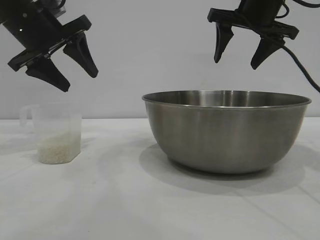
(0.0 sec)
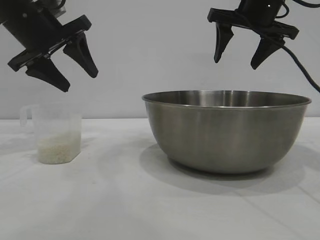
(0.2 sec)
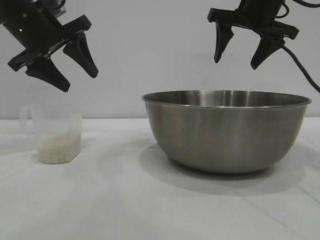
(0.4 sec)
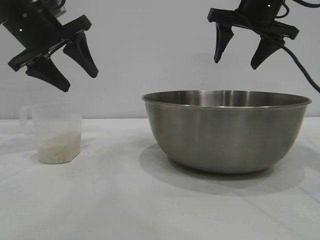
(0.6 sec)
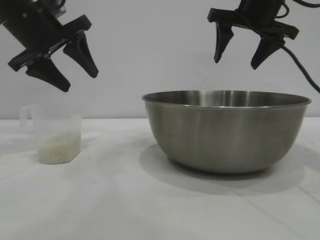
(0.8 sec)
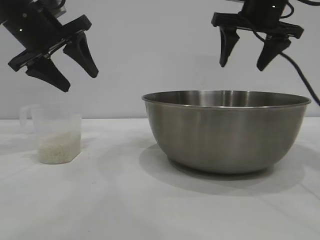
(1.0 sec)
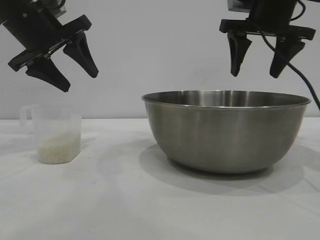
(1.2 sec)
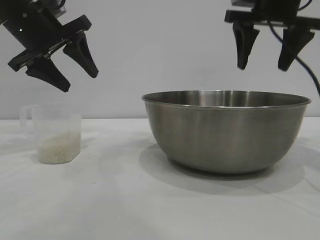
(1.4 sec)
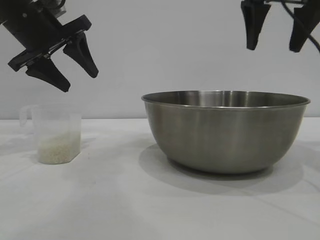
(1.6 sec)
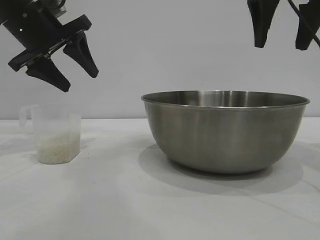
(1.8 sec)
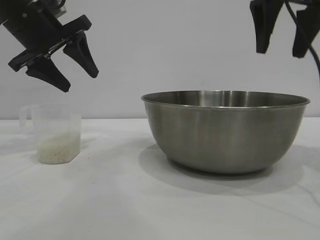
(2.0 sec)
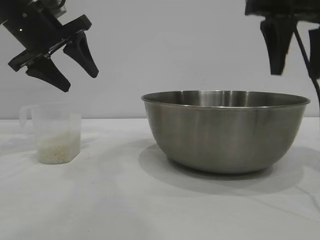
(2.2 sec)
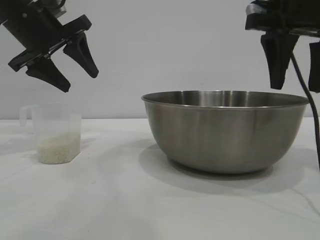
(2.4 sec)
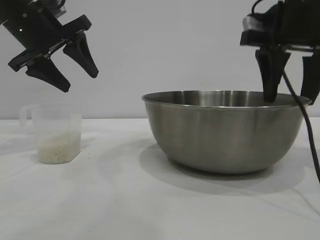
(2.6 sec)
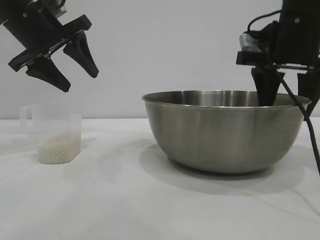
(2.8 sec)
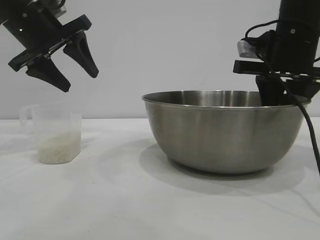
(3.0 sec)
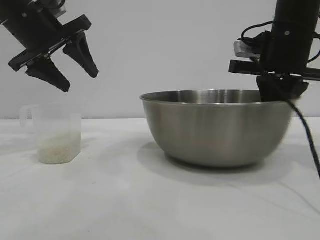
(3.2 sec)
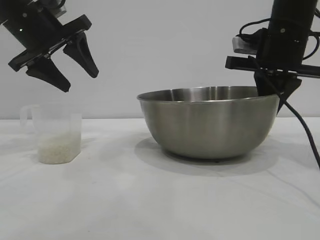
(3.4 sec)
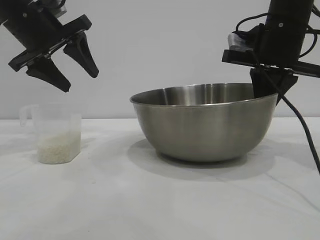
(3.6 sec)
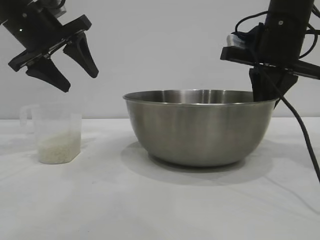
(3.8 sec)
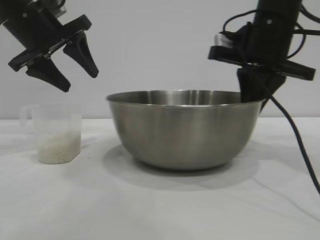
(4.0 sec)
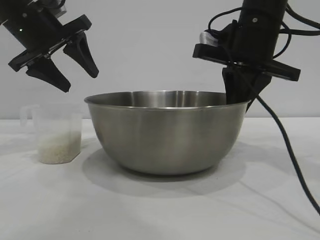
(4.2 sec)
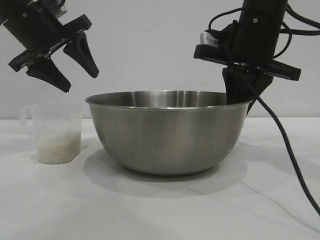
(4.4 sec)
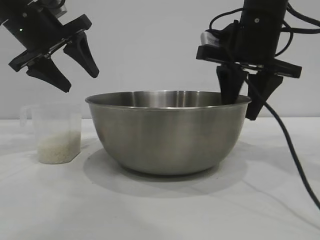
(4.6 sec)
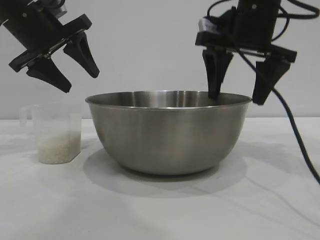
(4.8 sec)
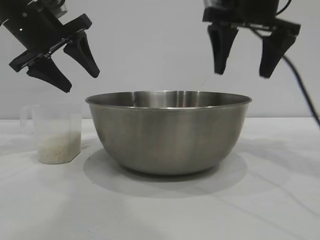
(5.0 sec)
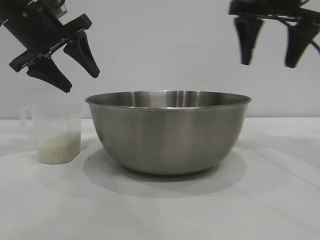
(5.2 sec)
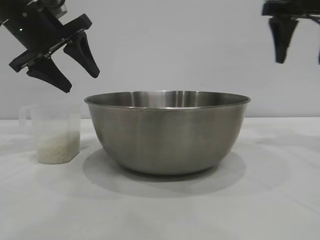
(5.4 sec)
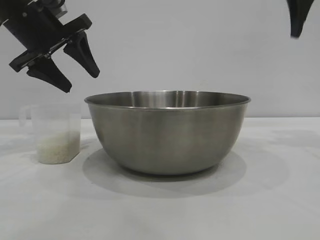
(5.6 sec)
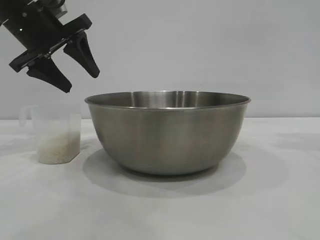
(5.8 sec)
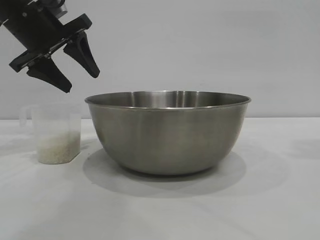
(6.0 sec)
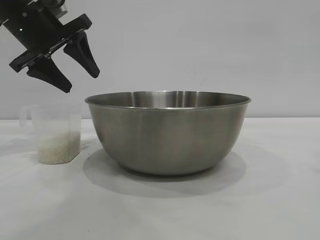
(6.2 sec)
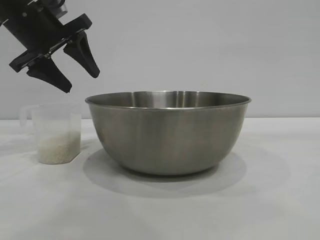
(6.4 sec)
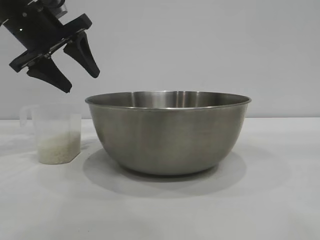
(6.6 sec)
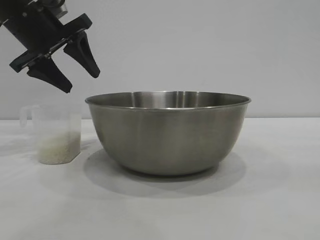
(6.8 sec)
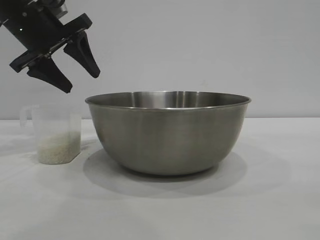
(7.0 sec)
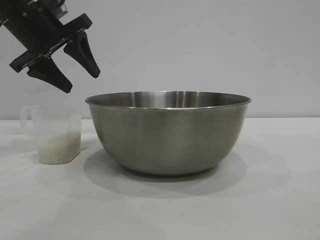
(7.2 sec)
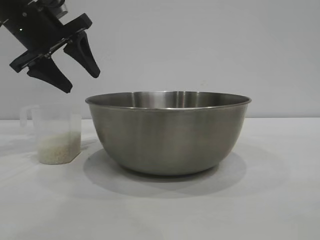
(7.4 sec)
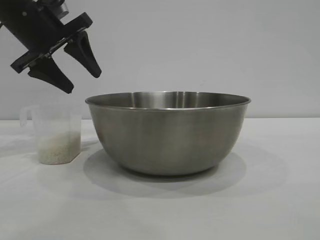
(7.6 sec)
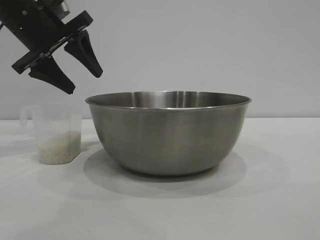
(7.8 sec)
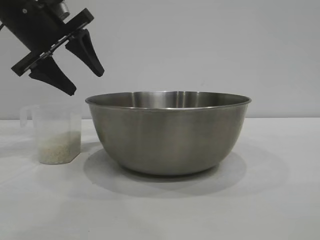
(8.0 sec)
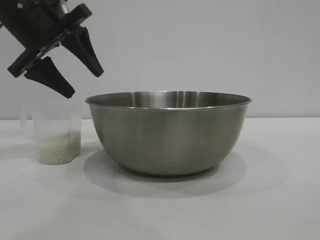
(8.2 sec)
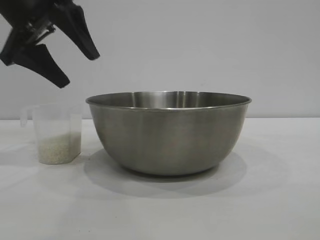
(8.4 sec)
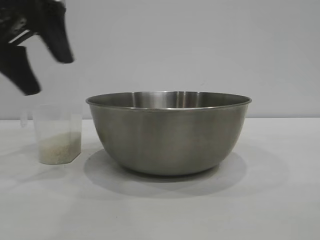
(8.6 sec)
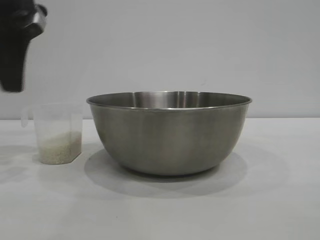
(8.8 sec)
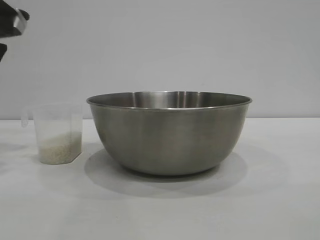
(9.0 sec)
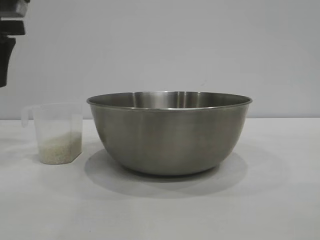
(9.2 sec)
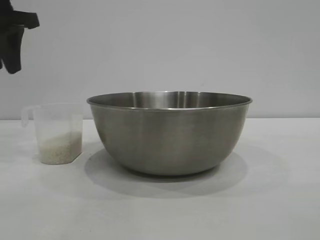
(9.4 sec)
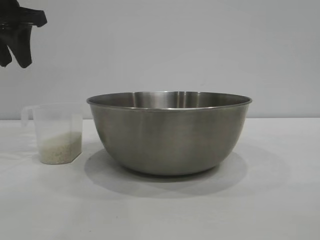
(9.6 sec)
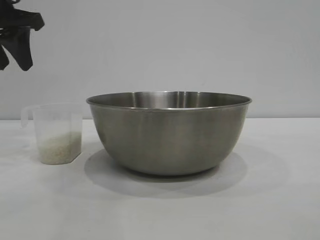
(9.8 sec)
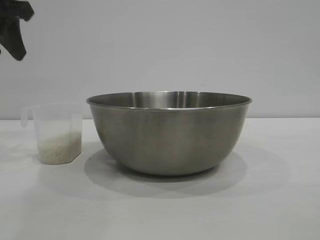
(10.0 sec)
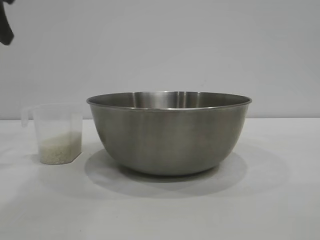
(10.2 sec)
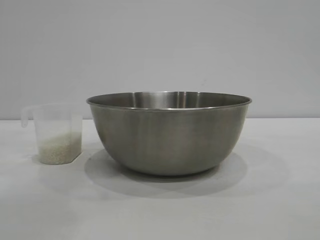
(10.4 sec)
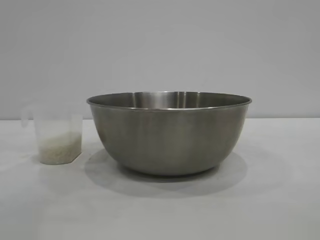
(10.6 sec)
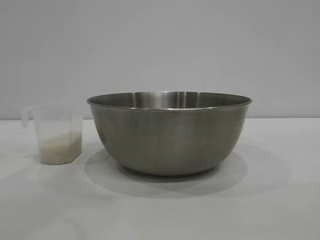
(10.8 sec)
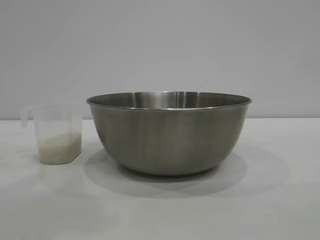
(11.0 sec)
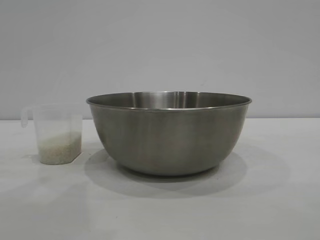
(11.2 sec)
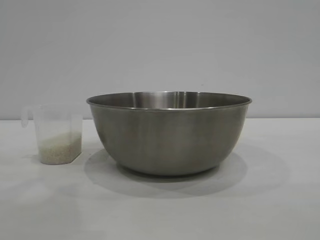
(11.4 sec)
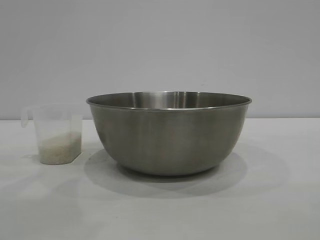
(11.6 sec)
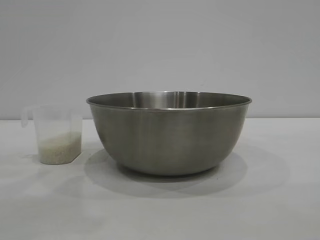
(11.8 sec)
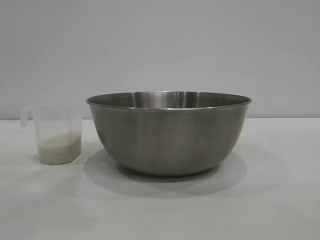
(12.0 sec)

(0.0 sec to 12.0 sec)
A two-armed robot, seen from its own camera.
Task of the whole recording: the right gripper grasp the rice container and place it in the center of the table, the left gripper grasp the rice scoop and pour the rice into the rice container.
Step, 0.0 sec - 5.0 sec: Move the bowl to the center of view with the right gripper.

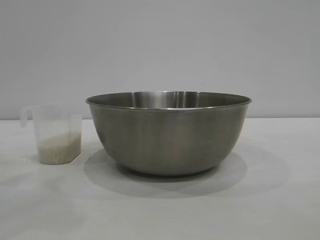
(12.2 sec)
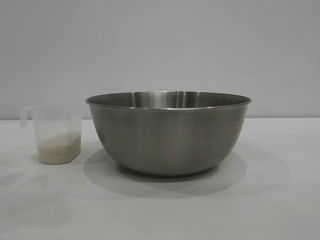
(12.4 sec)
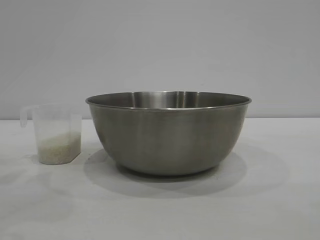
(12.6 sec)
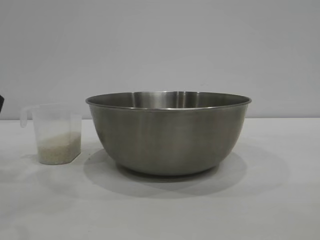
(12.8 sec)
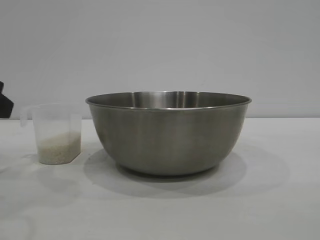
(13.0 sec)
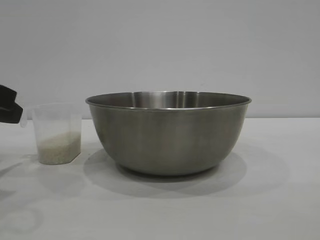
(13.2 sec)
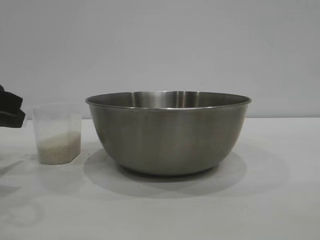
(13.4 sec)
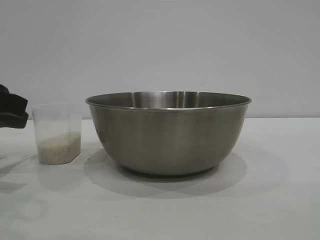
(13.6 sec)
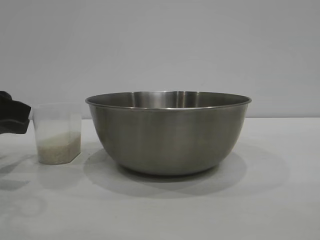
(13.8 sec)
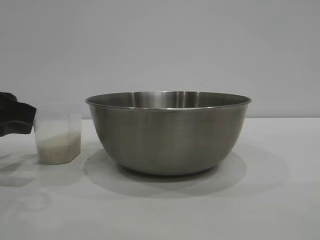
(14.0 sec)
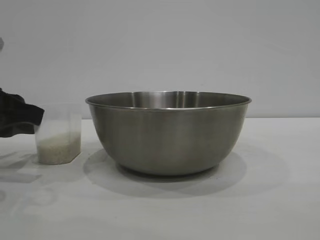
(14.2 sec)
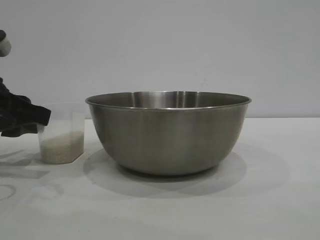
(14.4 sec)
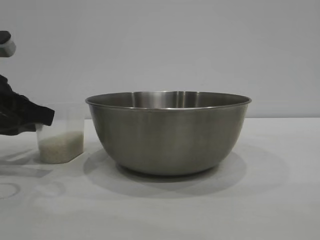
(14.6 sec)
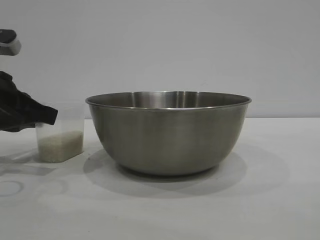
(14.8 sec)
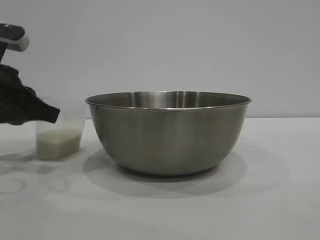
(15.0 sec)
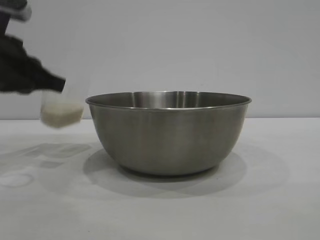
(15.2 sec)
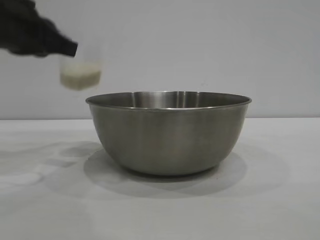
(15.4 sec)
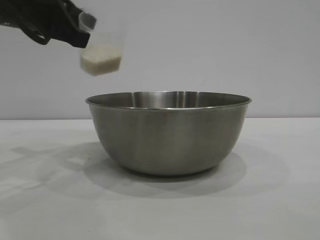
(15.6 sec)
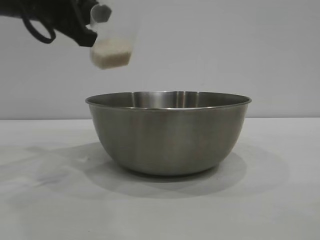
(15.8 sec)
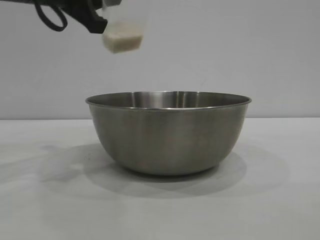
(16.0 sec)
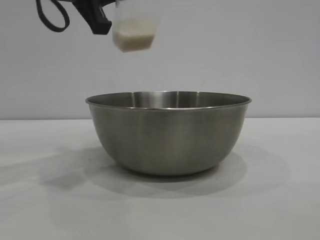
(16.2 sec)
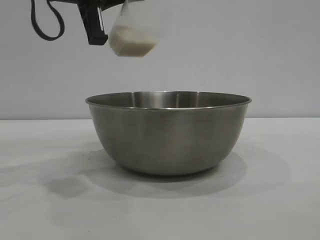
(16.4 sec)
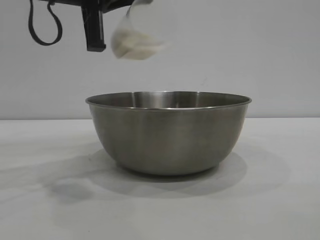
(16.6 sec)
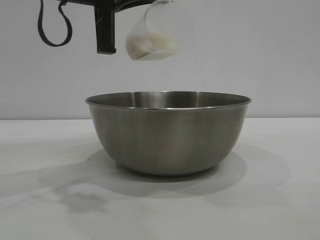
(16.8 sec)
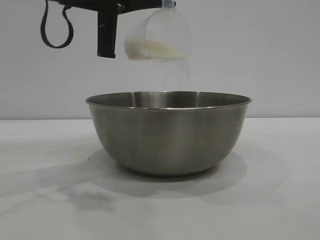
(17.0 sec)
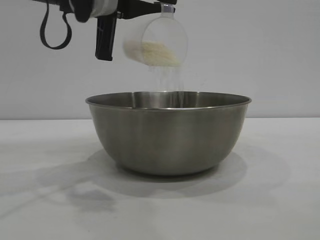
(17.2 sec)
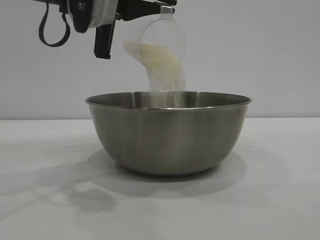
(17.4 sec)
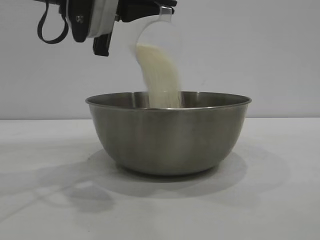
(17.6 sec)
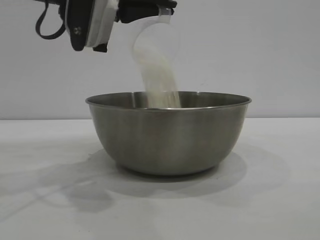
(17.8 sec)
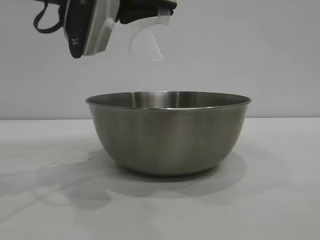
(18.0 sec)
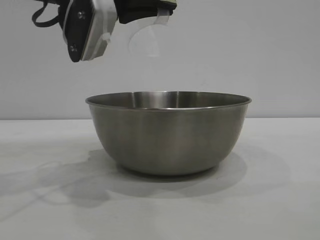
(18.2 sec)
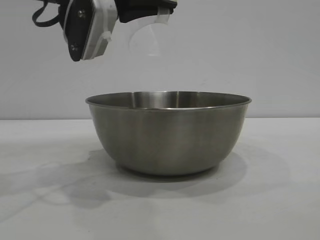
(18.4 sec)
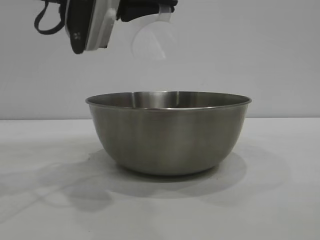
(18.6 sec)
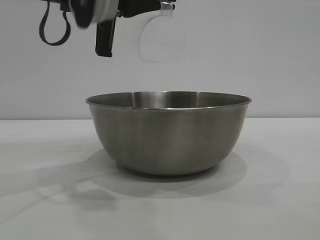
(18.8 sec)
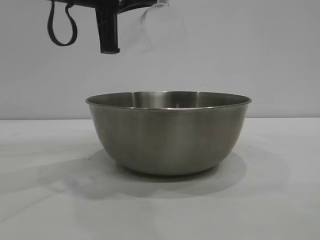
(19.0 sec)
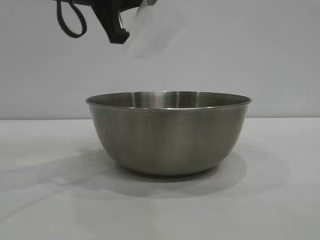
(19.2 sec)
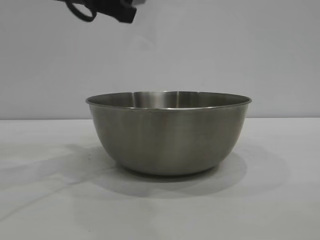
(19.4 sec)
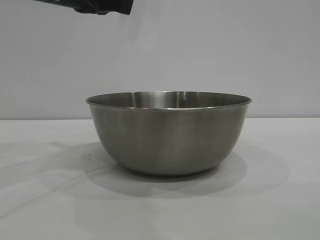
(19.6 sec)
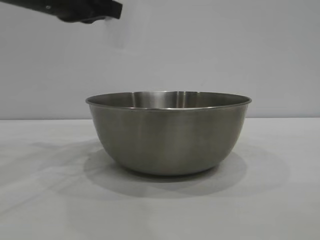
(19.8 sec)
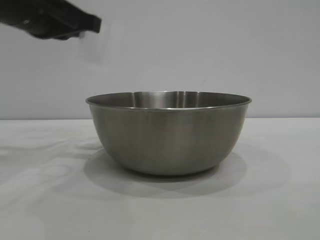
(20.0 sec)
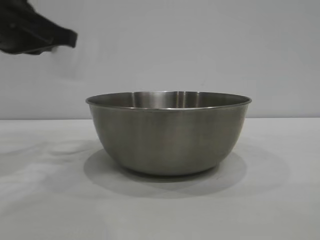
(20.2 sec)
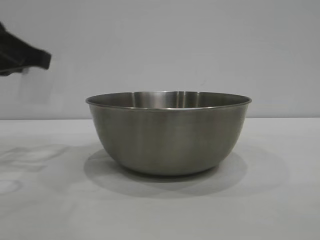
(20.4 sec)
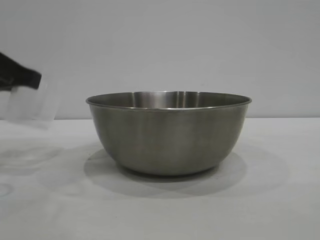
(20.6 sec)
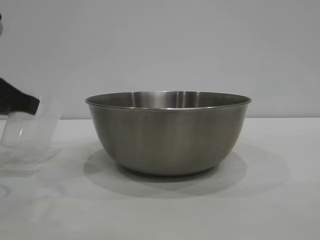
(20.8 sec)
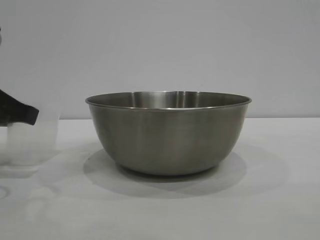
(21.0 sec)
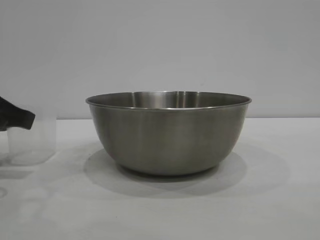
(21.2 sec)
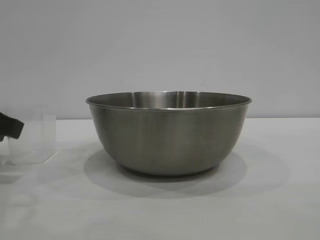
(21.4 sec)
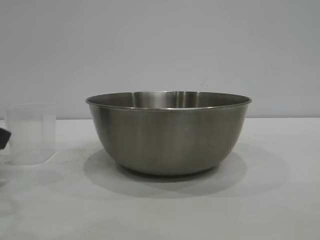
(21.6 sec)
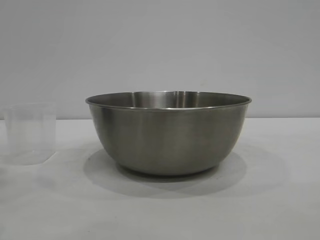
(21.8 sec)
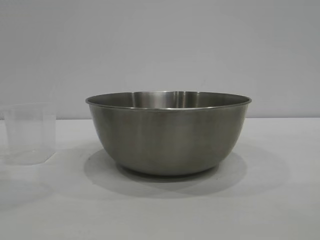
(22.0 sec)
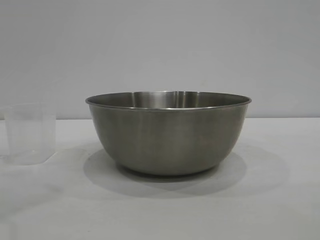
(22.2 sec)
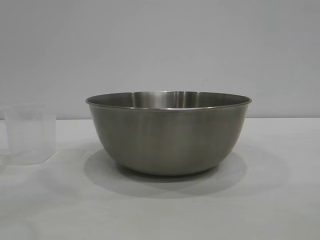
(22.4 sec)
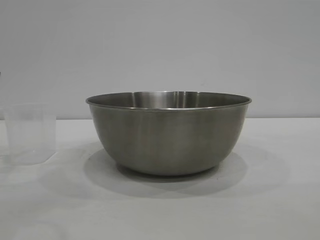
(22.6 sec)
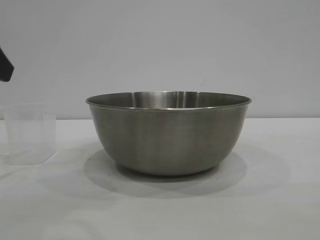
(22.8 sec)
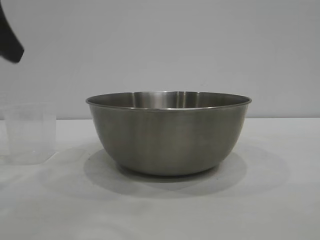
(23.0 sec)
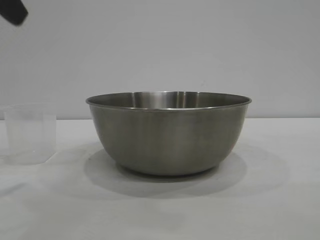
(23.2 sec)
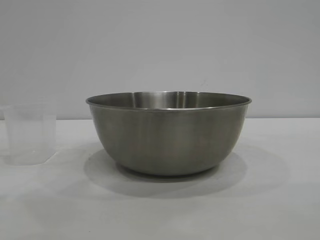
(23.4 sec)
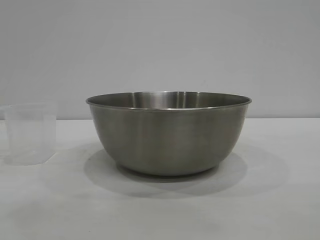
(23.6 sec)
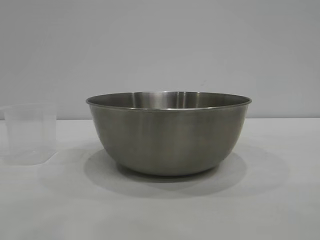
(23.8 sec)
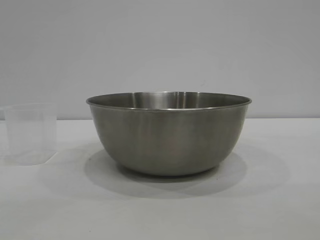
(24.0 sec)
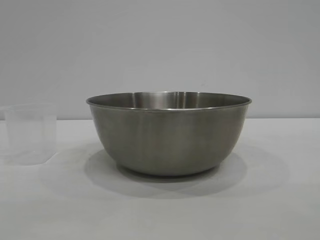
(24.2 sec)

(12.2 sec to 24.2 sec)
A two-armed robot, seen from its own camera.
Task of the whole recording: the right gripper grasp the rice container and place it in the center of the table, the left gripper grasp the rice scoop and pour the rice into the rice container.
Step, 12.2 sec - 15.4 sec: Pick up the cup with rice in it with the left gripper.
Step, 15.6 sec - 19.2 sec: Pour the rice from the cup into the bowl with the left gripper.
Step, 19.4 sec - 21.8 sec: Place the cup on the table with the left gripper.
